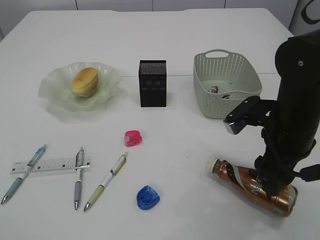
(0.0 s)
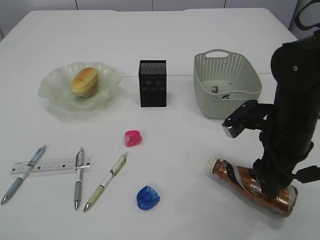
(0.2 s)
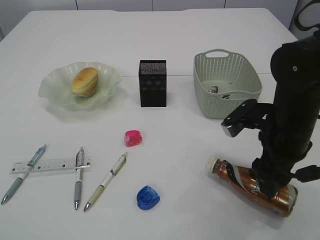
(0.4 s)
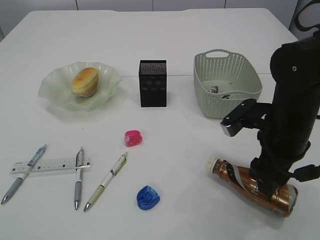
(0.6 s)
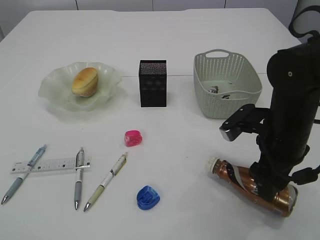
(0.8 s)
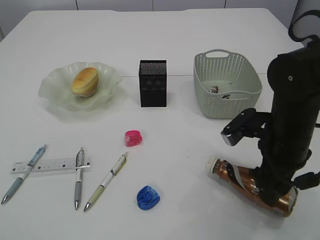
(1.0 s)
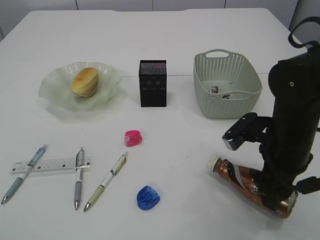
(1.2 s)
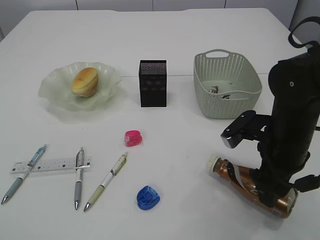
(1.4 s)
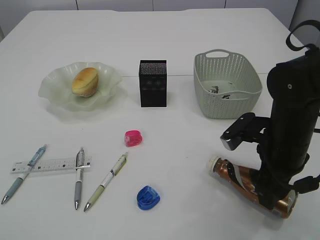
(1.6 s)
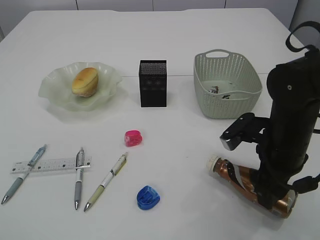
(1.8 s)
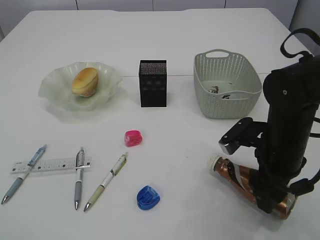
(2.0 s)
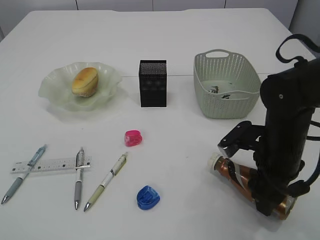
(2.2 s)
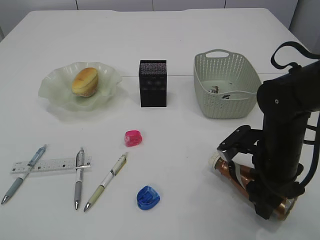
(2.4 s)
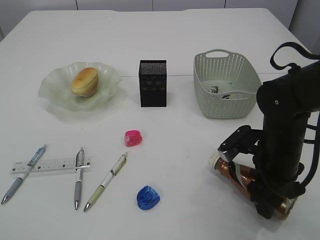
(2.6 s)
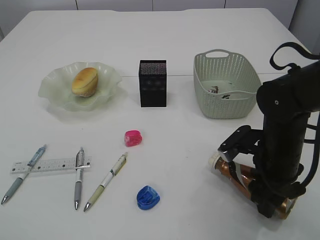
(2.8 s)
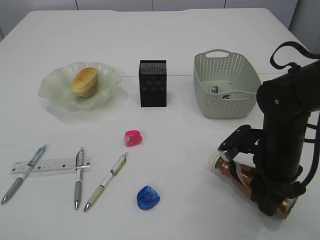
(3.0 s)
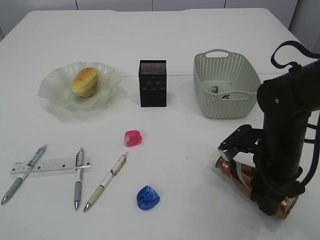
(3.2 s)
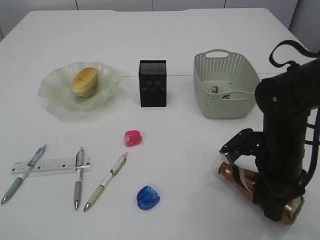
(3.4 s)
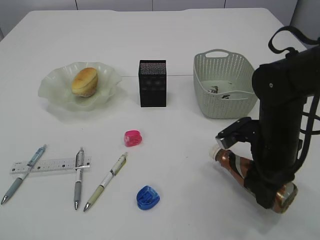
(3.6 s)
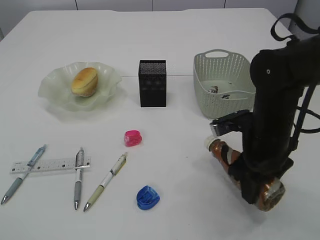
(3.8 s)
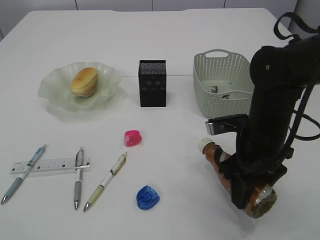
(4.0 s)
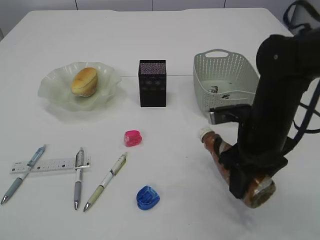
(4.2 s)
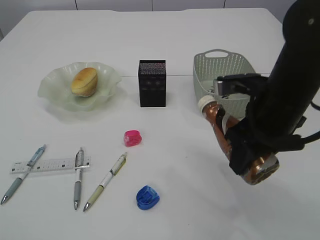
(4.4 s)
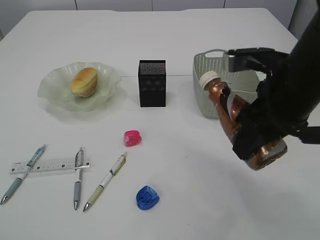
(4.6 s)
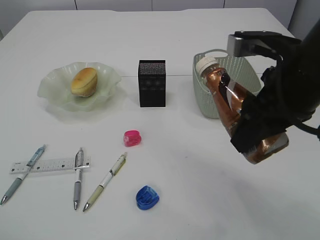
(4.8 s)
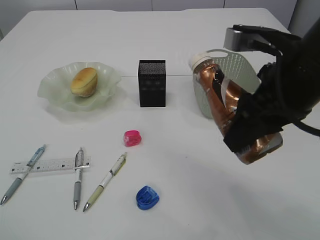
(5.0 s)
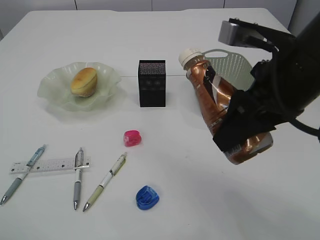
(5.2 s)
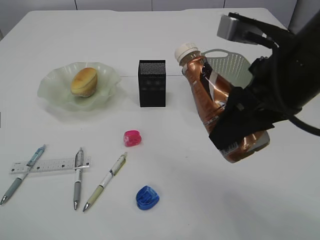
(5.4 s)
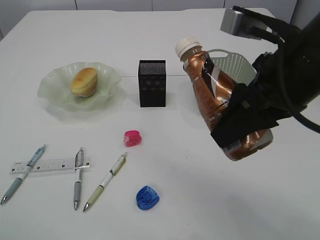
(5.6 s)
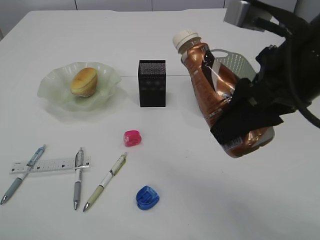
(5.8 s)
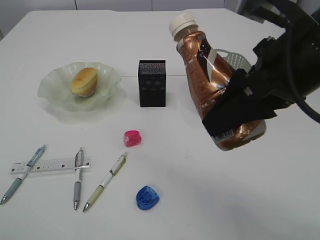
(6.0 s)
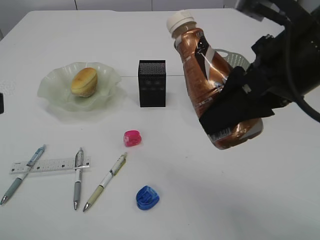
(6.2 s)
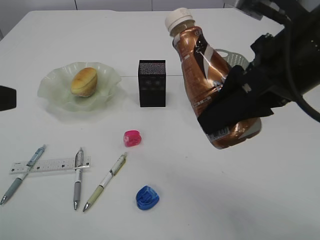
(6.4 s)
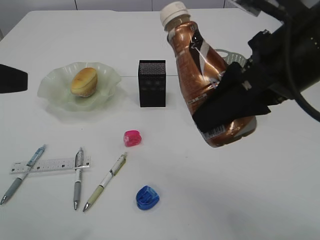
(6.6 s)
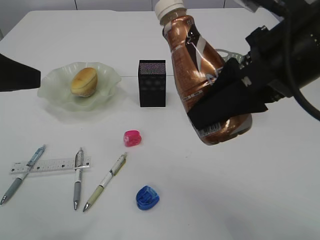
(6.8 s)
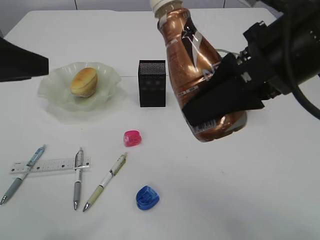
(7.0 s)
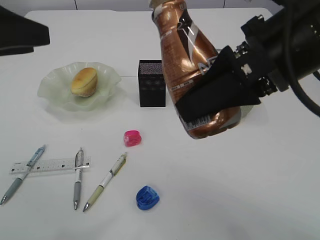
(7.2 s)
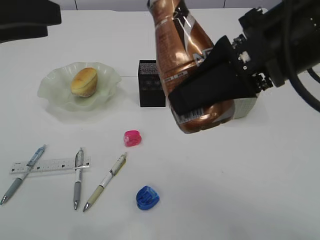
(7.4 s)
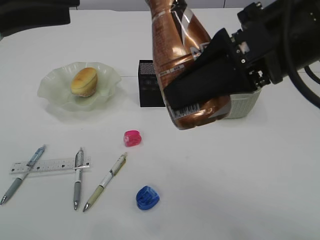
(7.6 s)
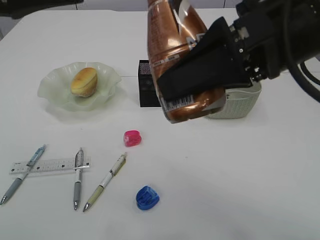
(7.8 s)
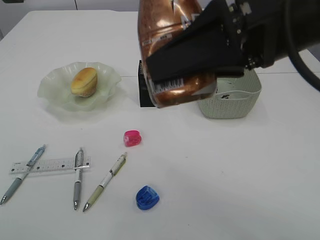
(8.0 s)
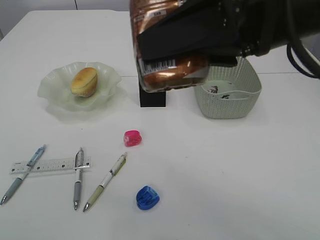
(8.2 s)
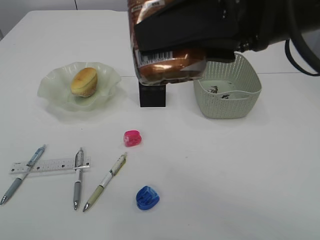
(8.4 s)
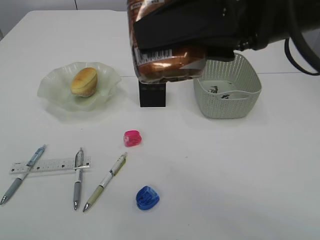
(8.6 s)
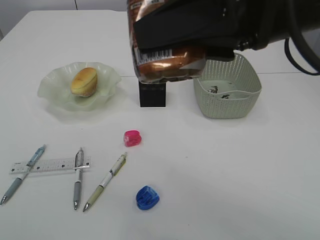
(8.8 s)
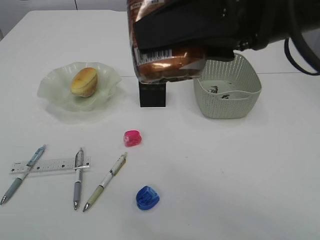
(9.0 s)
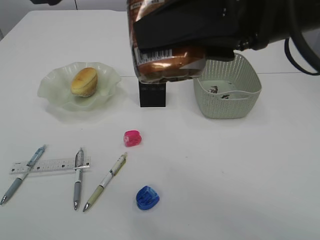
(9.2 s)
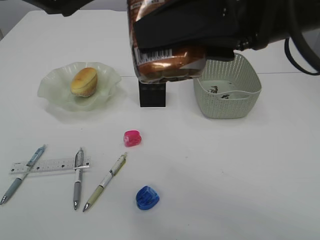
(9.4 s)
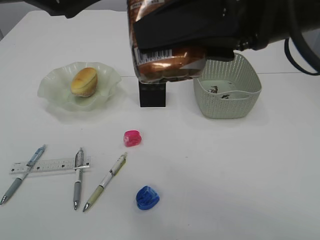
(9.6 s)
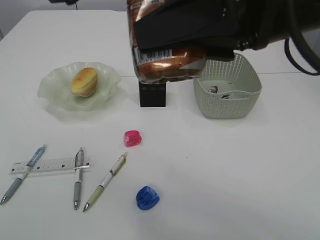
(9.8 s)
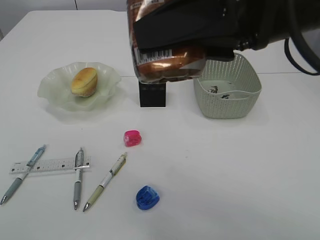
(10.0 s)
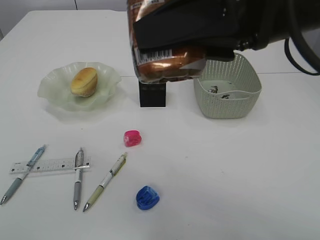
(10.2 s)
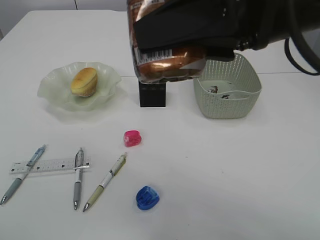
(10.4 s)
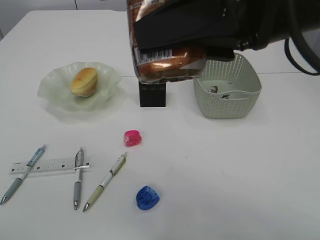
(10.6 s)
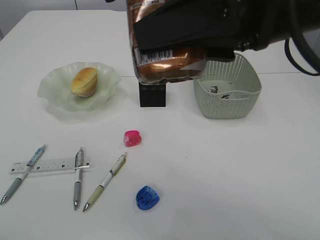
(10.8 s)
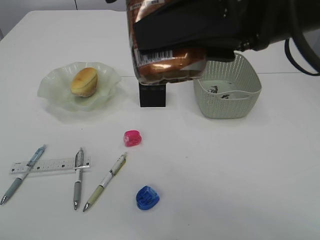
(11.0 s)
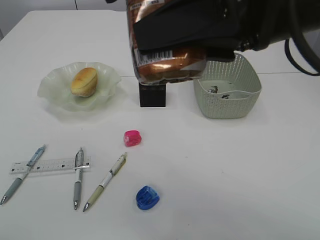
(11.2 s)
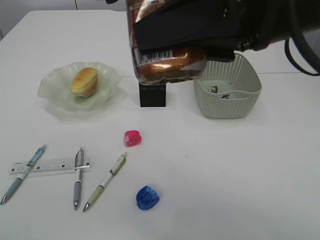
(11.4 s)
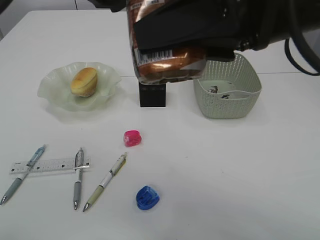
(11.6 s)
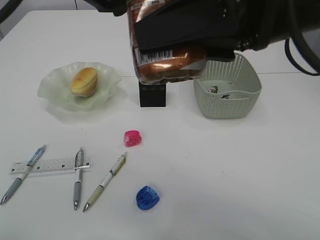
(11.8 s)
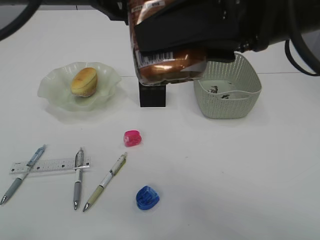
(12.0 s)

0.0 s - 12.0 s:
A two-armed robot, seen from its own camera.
Step, 0.0 s - 4.2 s: Pick up the bottle with the right arm.
0.0 s - 1.6 s: The grippers make only small movements.
1.6 s - 3.0 s: The grippers move only a little.
3.0 s - 4.4 s: The right gripper is displaced upward by some 10 cm.
4.4 s - 6.0 s: The right gripper shifts roughly 10 cm upward and backward; the left gripper shifts by about 5 cm.
6.0 s - 7.6 s: The left gripper goes approximately 10 cm forward.
10.4 s - 12.0 s: The grippers stay close to where they were, moving slightly.

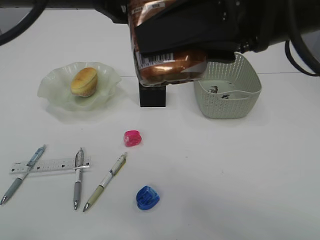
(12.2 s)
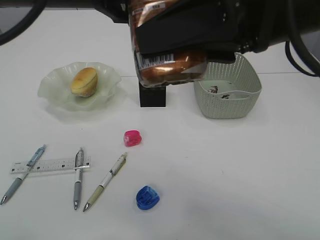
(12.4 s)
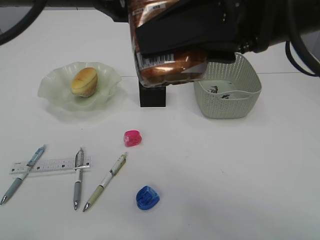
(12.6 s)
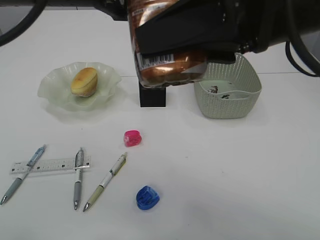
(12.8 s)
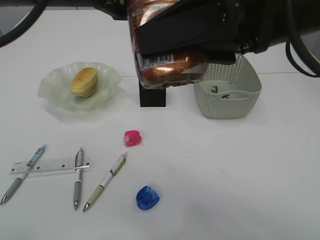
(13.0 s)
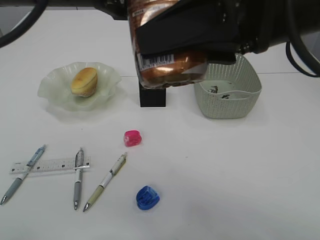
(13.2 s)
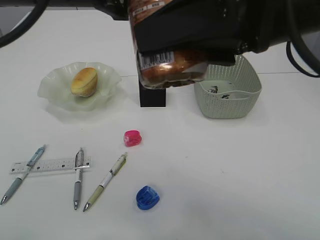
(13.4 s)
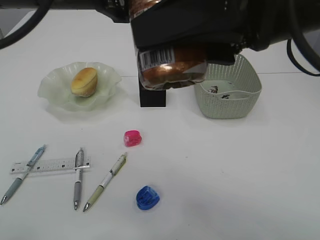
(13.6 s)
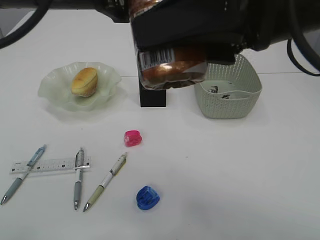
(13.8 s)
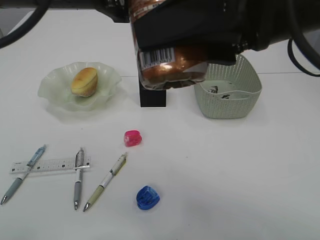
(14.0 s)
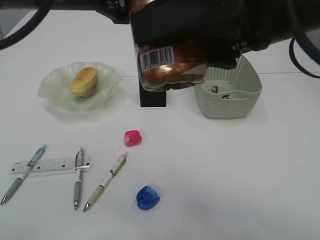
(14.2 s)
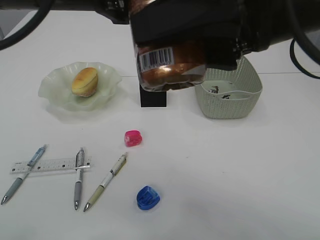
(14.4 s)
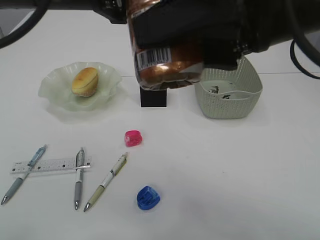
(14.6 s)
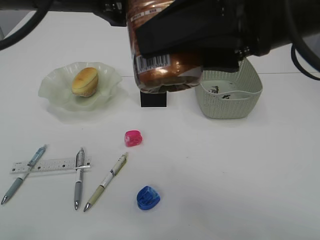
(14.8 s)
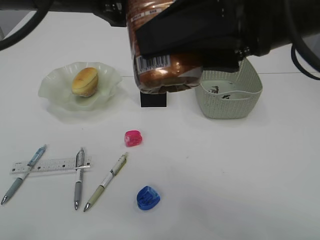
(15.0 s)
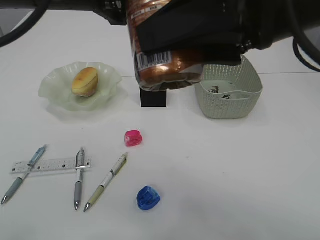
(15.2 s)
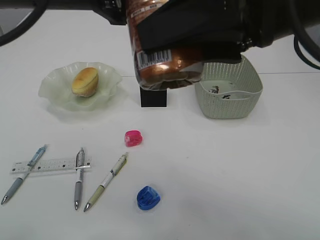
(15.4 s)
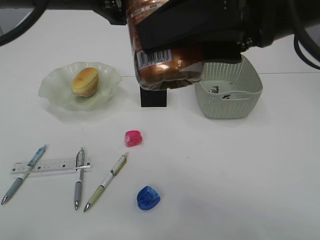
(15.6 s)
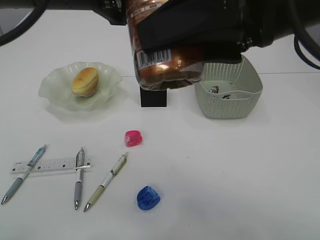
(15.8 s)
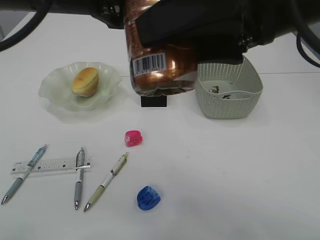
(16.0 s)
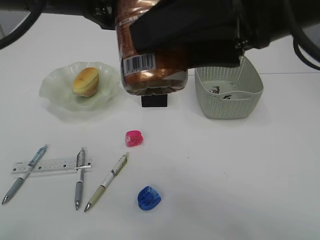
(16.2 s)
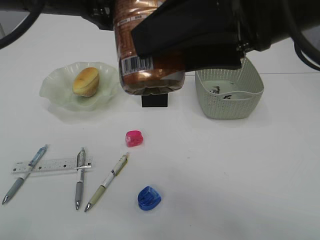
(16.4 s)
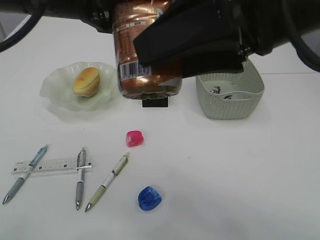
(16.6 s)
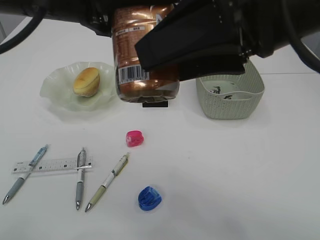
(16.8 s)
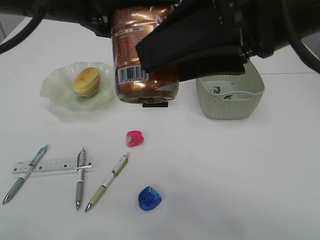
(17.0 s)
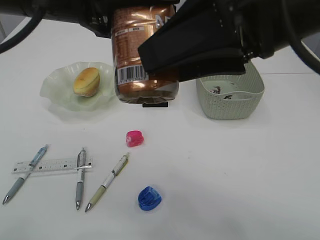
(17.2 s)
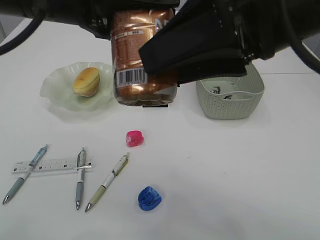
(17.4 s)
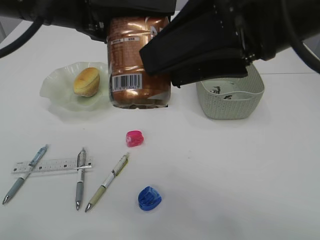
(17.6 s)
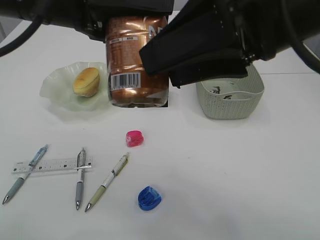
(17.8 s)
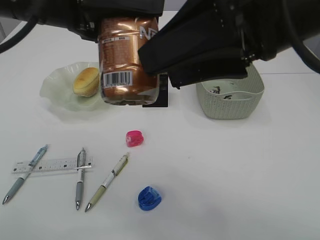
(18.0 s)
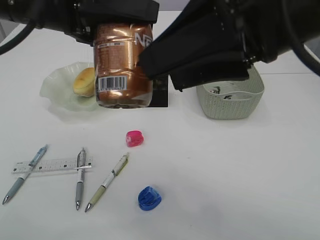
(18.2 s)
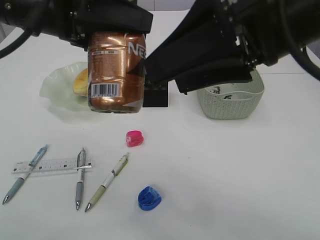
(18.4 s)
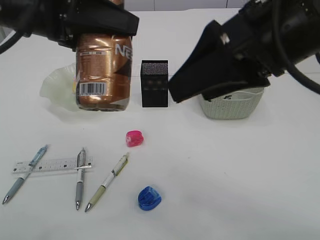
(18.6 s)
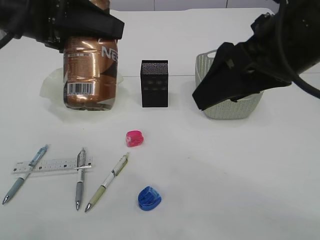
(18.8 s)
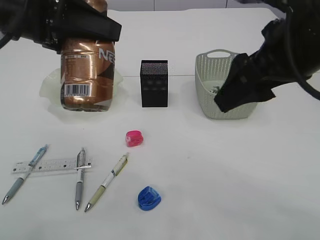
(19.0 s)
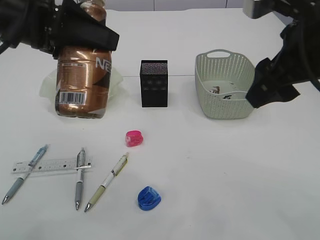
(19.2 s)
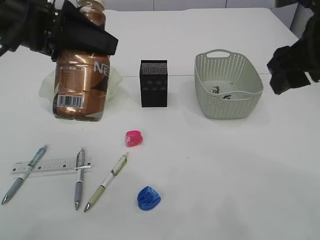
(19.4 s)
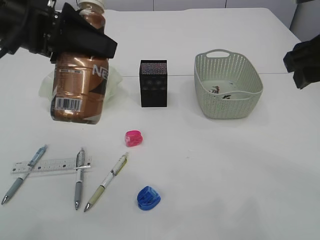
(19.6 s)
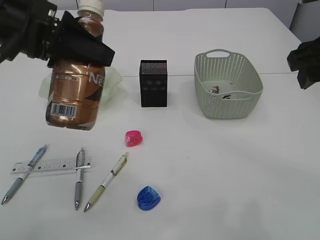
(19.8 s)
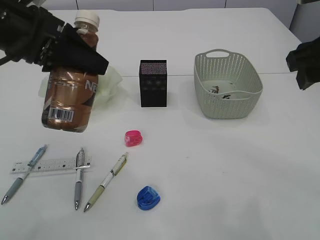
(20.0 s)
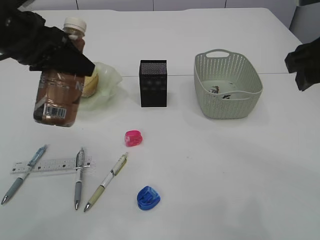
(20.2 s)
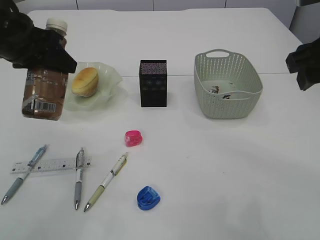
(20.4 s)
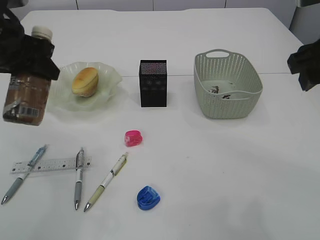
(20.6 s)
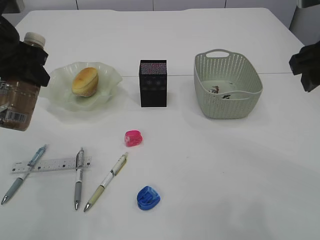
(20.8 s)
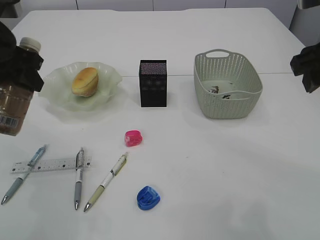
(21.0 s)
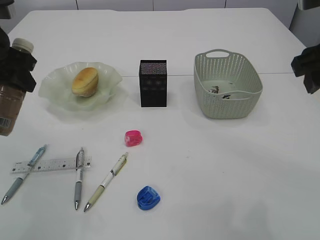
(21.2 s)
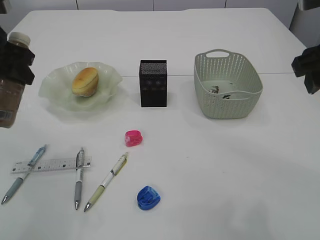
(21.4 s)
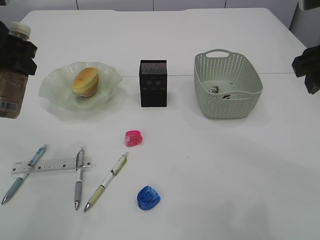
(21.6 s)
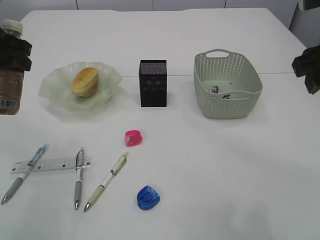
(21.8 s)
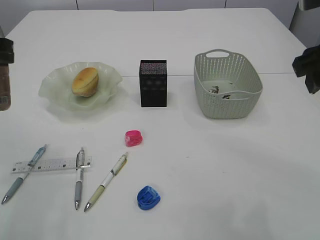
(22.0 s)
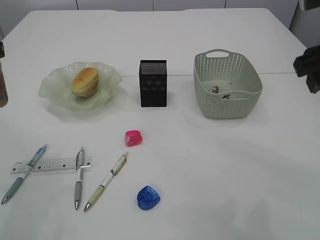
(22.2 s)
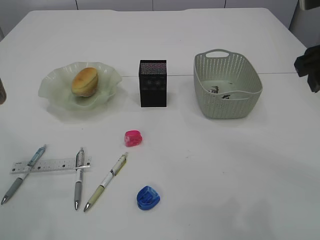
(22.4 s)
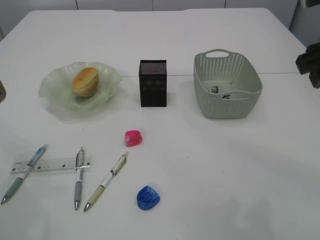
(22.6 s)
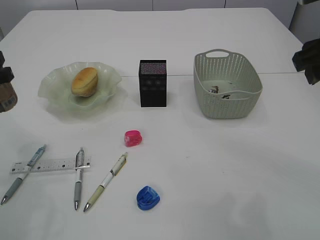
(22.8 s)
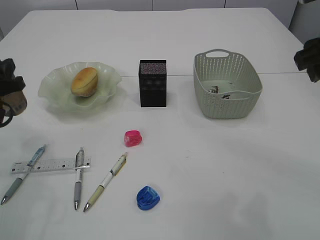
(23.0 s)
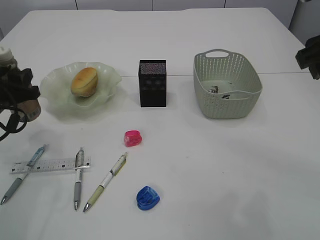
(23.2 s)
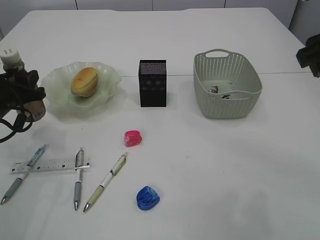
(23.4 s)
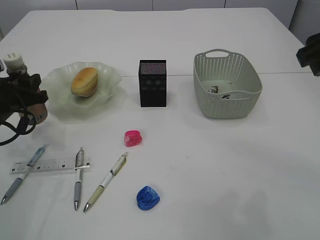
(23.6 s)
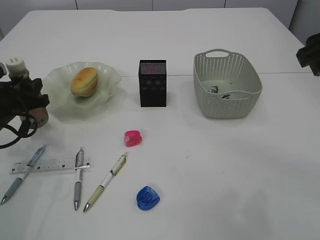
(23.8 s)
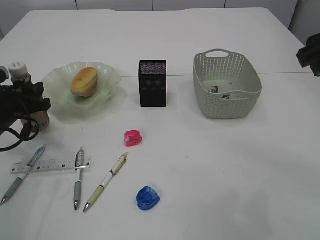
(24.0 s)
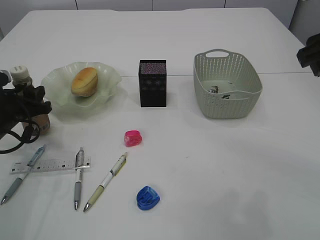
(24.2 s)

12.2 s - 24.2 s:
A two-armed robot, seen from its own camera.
Step, 12.2 s - 18.8 s: transfer the bottle to the left arm.
12.2 s - 13.8 s: The right gripper opens, while the left gripper closes.
13.8 s - 18.2 s: There are only small adjustments of the grippers.
18.2 s - 19.8 s: The left gripper moves about 5 cm. Meanwhile the right gripper shifts roughly 10 cm to the right.
19.8 s - 21.2 s: The left gripper shifts some 10 cm to the left.
21.2 s - 22.6 s: The left gripper is displaced backward by approximately 5 cm.
22.6 s - 24.2 s: The left gripper travels downward and forward by some 15 cm.
